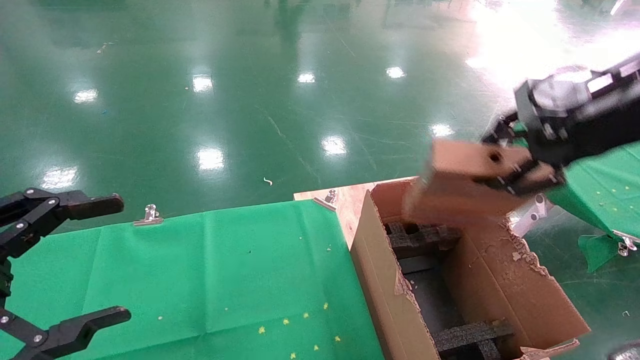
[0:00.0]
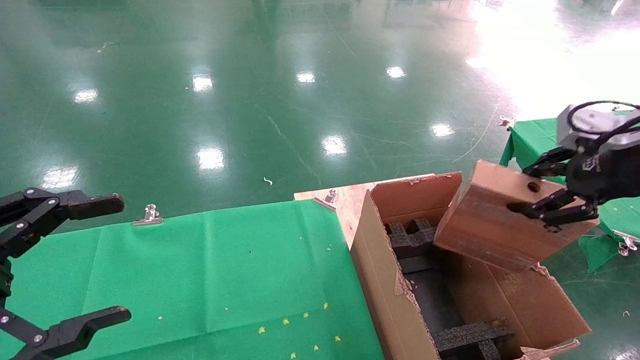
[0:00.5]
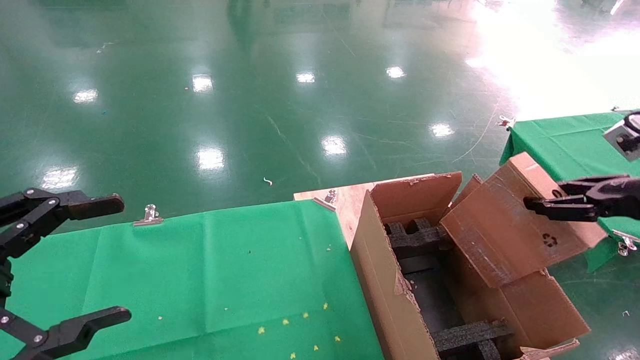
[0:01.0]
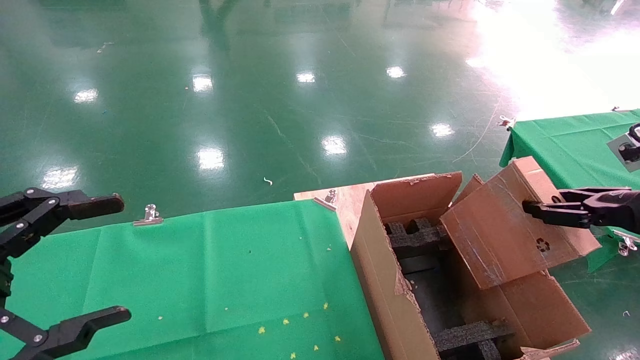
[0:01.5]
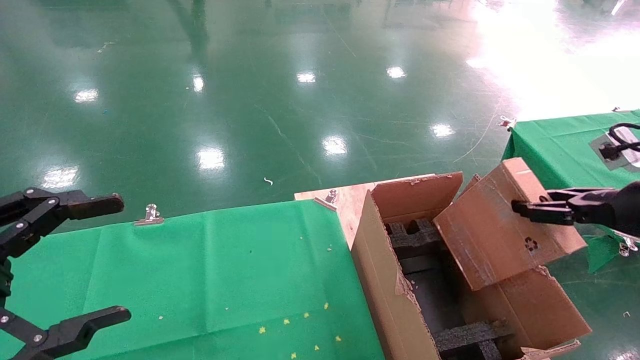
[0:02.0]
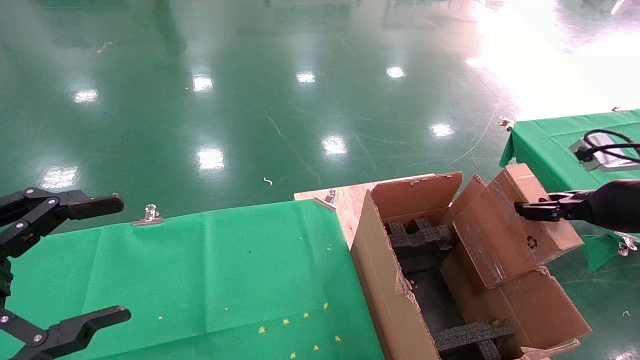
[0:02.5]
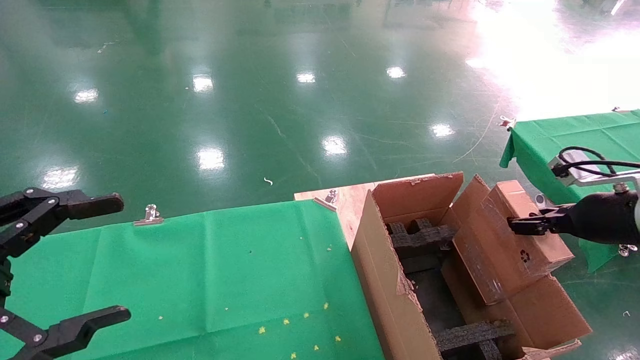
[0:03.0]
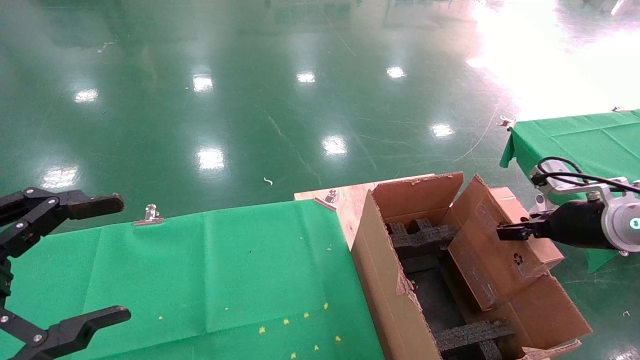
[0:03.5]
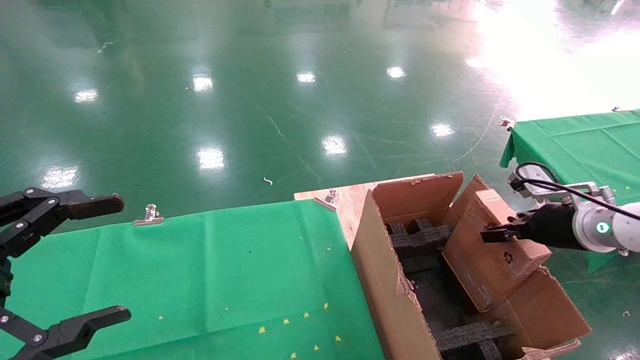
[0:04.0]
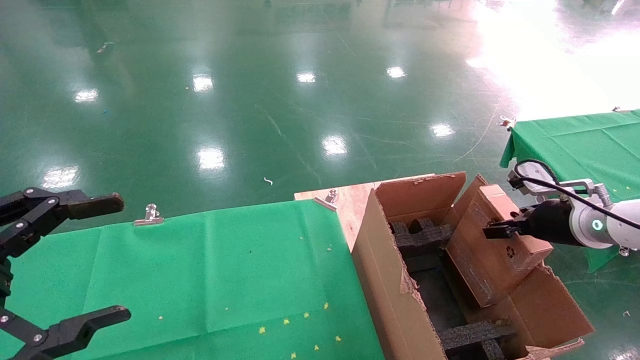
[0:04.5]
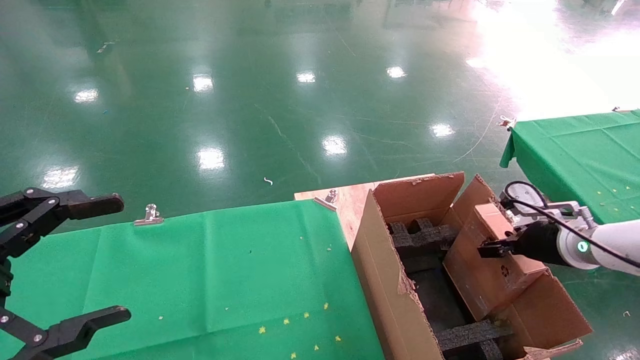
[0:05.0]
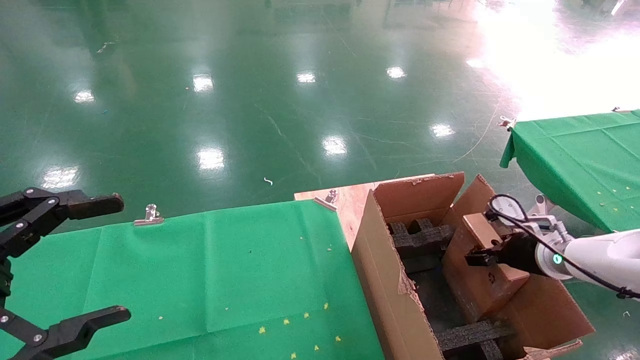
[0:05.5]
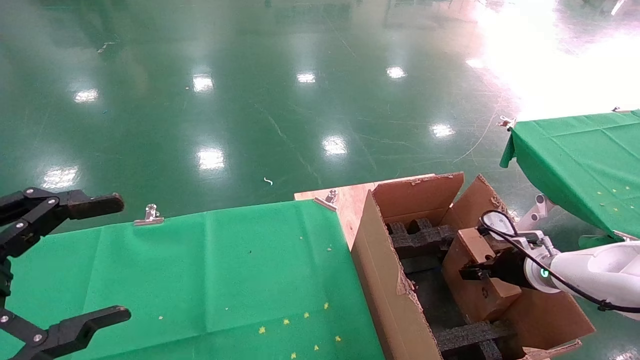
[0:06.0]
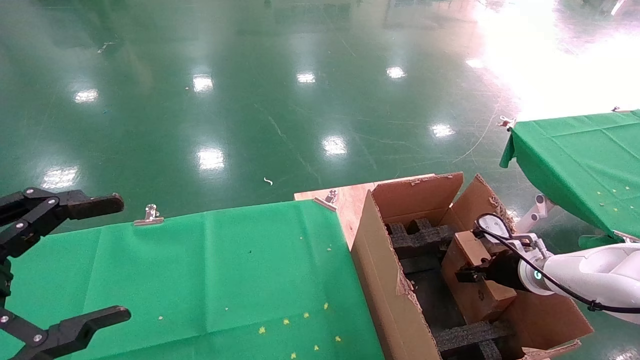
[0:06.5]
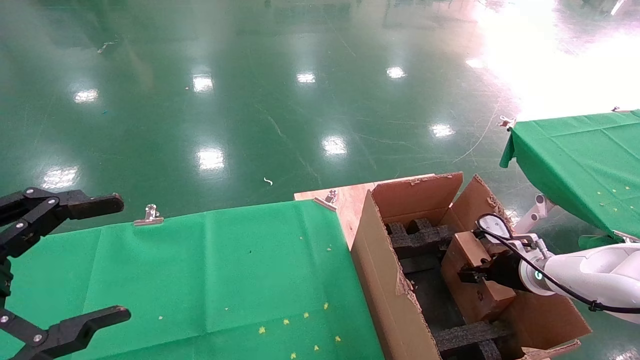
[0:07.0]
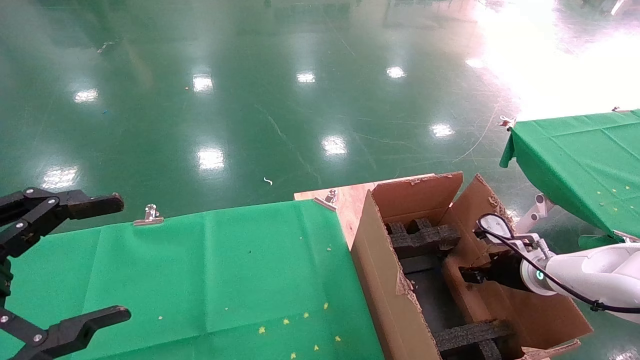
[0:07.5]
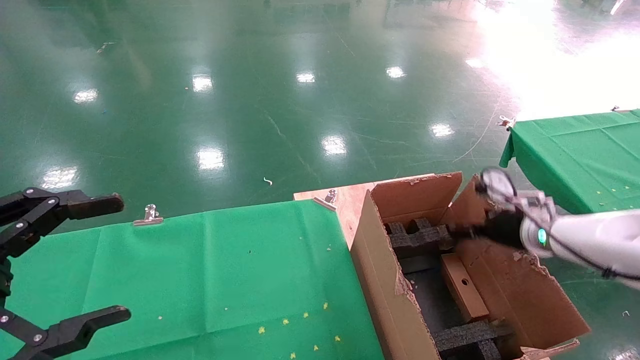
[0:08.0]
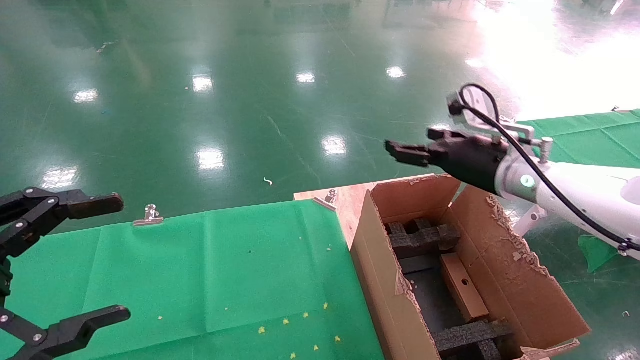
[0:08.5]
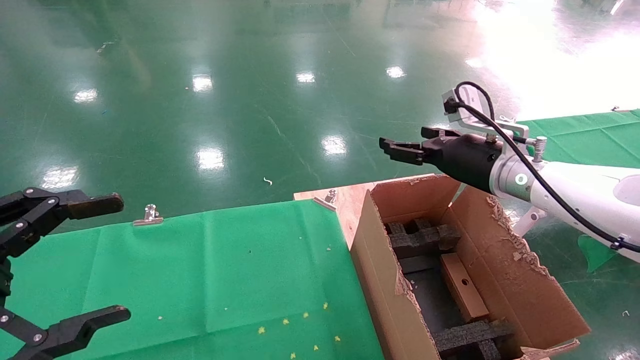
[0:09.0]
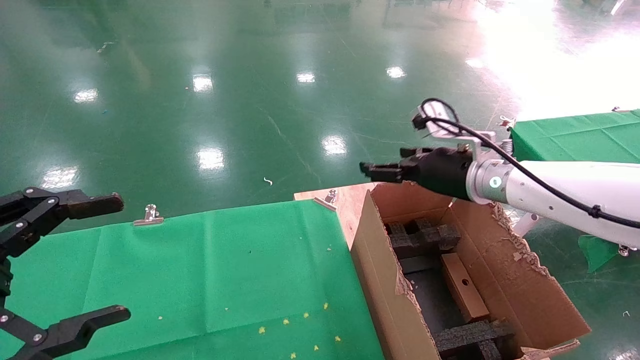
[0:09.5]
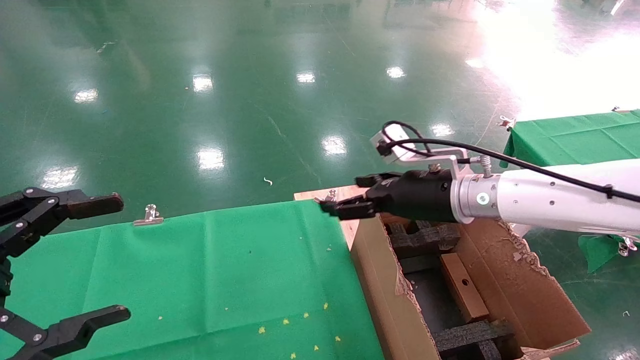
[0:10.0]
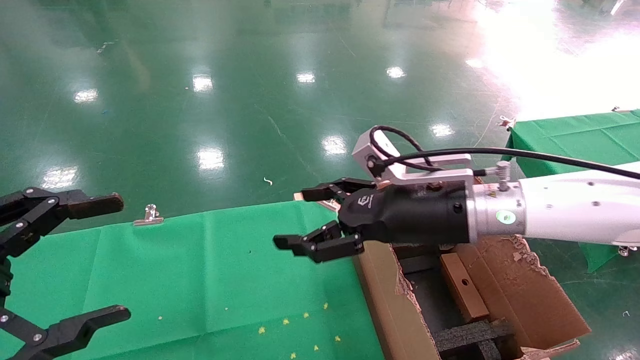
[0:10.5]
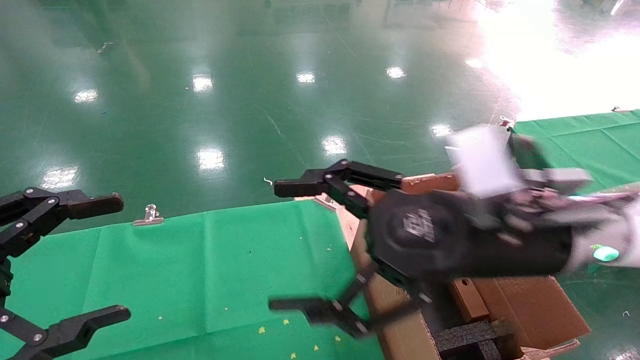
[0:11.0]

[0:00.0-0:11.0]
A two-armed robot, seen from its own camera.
Task of the whole recording: using a robotic arm to pick up a cardboard box and palace it the carton.
Step, 0:00.0 to 0:07.5: Place the mouse and the power cord paper box into the container.
0:00.0 to 0:02.0: The right gripper travels downward and to the right by some 20 cm.
0:02.0 to 0:03.5: The right gripper heads forward and downward, covering some 10 cm.
0:03.5 to 0:05.5: The right gripper travels downward and forward by about 10 cm.
0:05.5 to 0:07.5: The right gripper opens.
0:07.5 to 0:09.0: The right gripper is displaced upward and to the left by approximately 20 cm, and opens its fingers.
0:09.0 to 0:11.0: The right gripper heads backward and to the left, covering roughly 20 cm.
